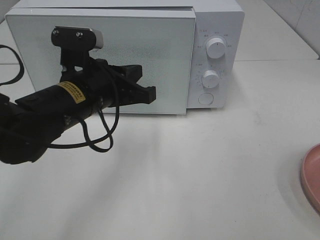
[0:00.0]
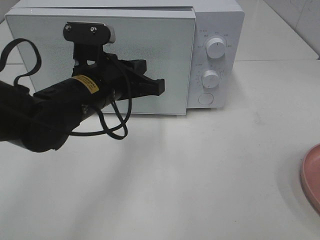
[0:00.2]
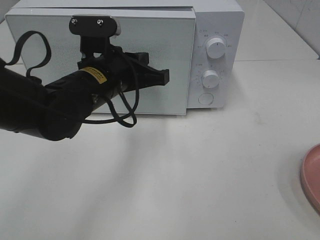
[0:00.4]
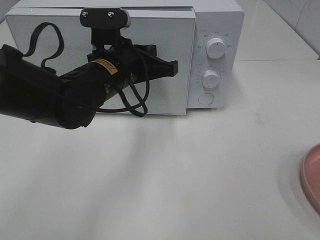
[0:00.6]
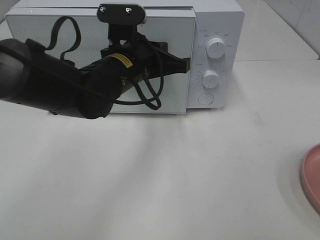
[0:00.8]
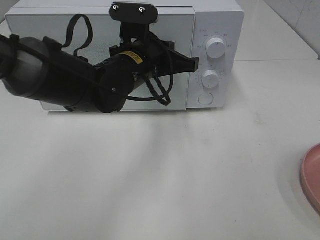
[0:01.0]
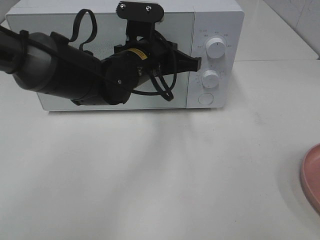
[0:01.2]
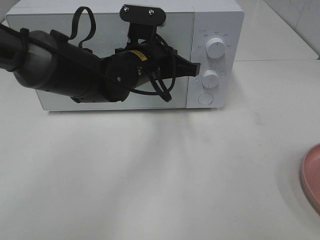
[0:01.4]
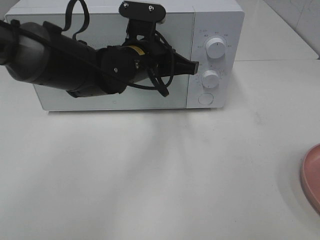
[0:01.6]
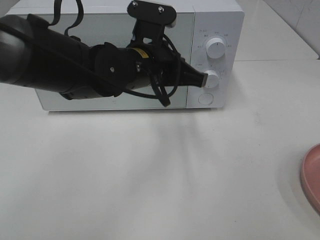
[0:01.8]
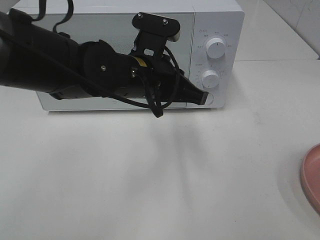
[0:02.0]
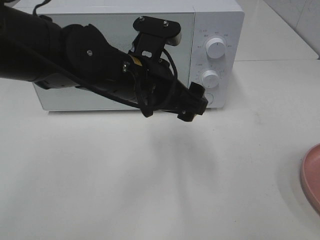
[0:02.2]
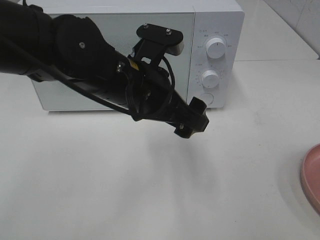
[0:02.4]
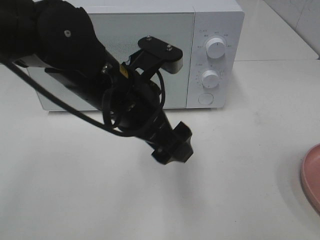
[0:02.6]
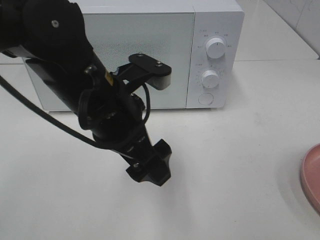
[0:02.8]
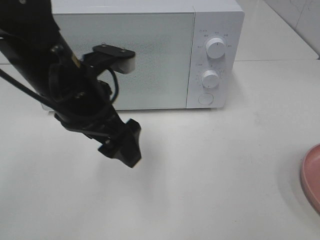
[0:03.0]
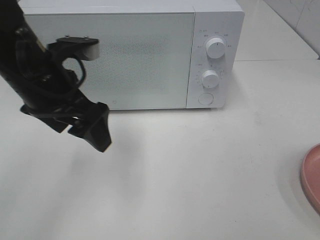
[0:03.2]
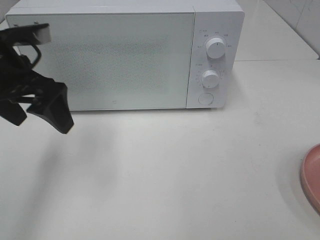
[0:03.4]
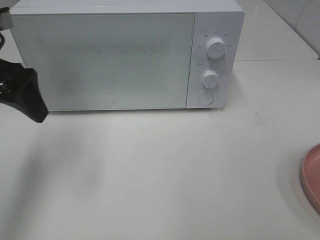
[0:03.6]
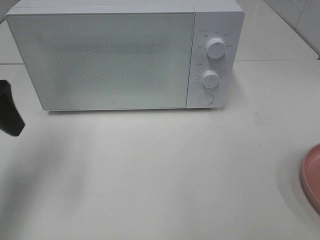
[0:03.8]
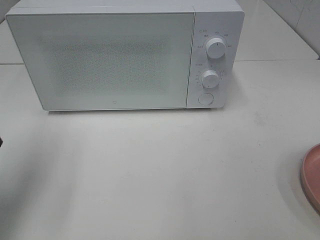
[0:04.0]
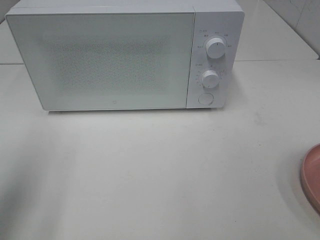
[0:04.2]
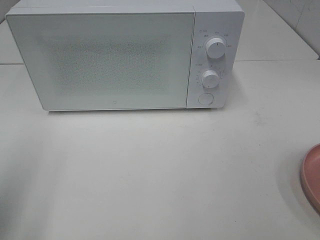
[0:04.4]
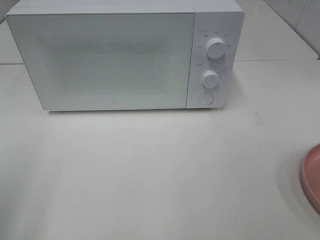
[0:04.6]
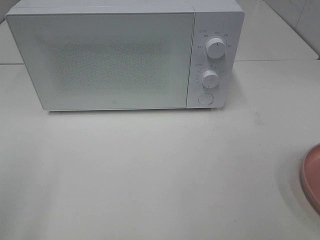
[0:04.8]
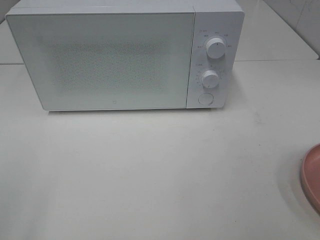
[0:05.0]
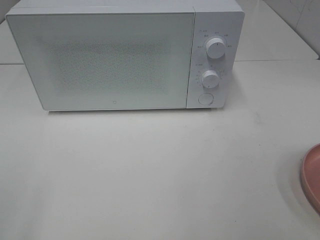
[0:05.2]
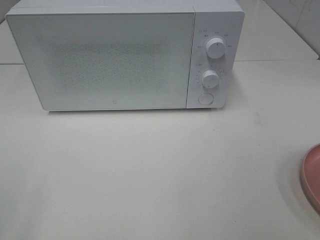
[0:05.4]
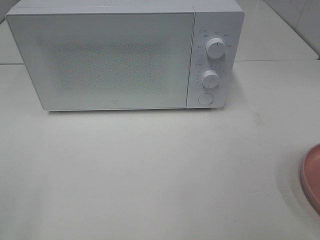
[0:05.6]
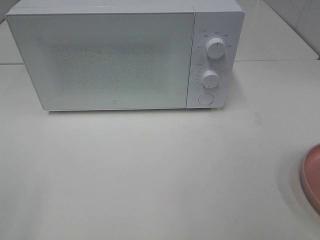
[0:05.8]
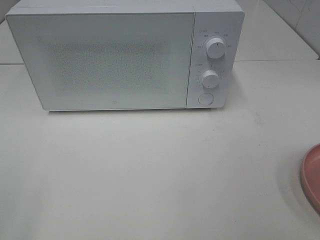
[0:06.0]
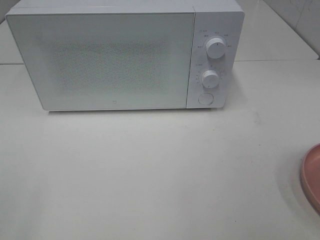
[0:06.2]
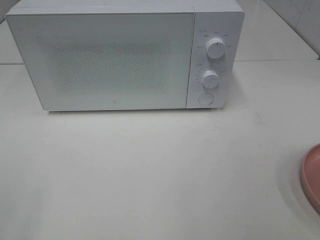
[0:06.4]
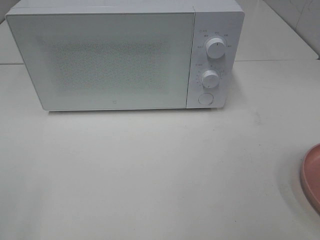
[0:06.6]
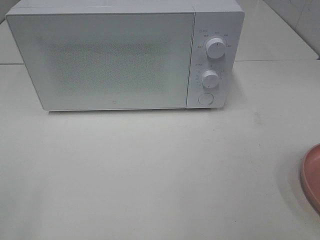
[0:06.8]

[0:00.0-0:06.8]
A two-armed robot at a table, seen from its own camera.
Task of the whole recording: Heat the burger.
0:00.0 to 0:01.4: The left gripper moves forward and to the right, about 10 cm.
0:01.4 to 0:02.8: The left gripper shifts about 10 cm backward, and opens up.
0:02.8 to 0:04.0: The left gripper is displaced to the left by some 20 cm.
0:04.0 to 0:05.4: The left gripper is displaced backward by some 20 cm.
0:05.4 to 0:06.8: Neither gripper changes place.

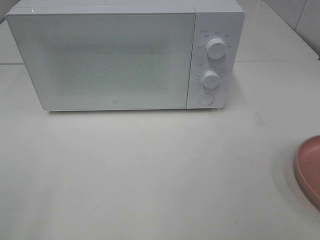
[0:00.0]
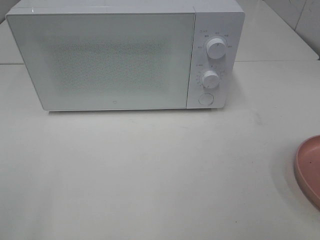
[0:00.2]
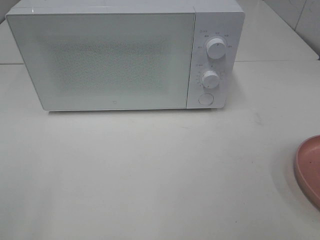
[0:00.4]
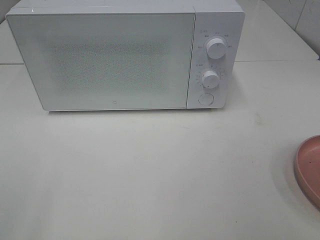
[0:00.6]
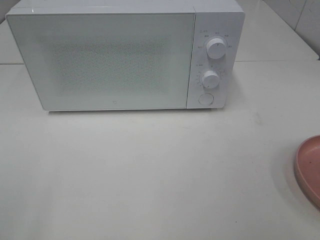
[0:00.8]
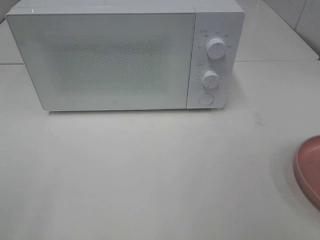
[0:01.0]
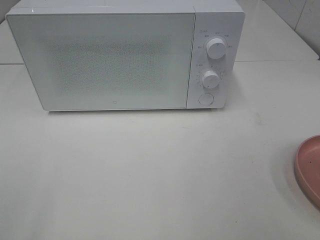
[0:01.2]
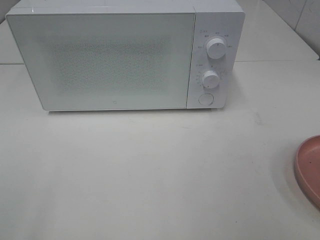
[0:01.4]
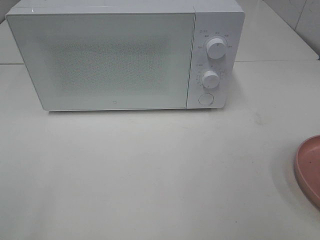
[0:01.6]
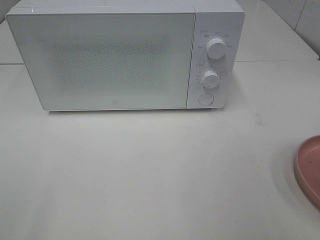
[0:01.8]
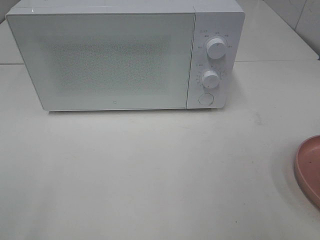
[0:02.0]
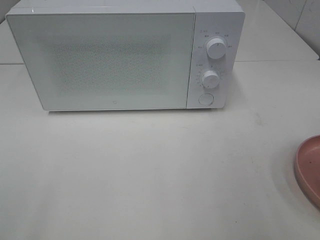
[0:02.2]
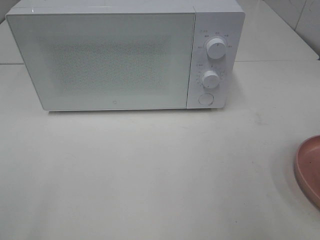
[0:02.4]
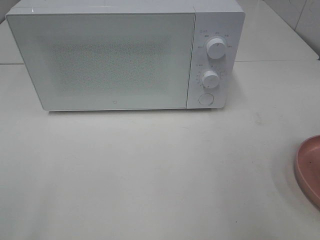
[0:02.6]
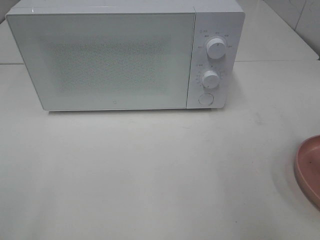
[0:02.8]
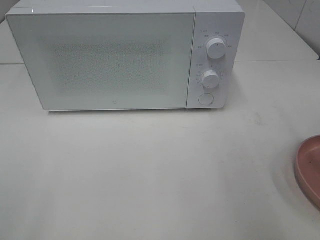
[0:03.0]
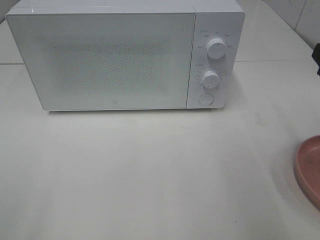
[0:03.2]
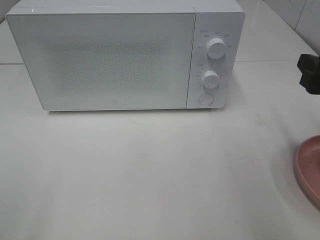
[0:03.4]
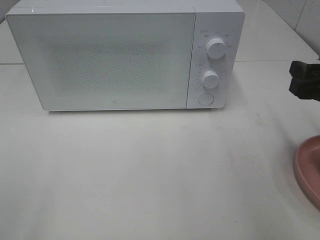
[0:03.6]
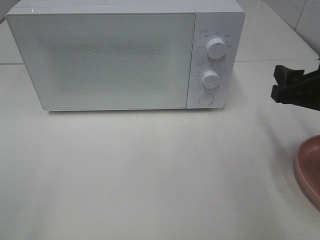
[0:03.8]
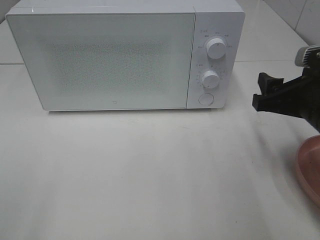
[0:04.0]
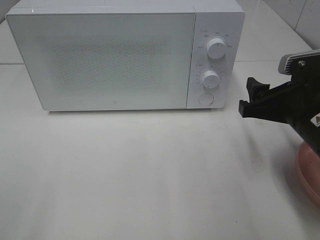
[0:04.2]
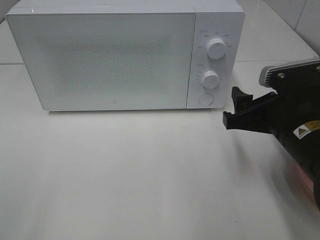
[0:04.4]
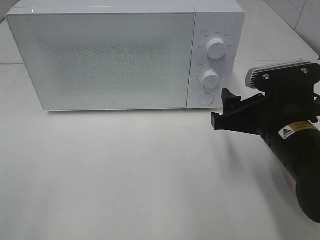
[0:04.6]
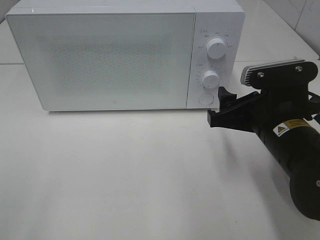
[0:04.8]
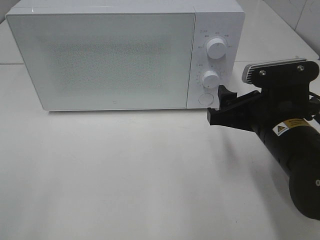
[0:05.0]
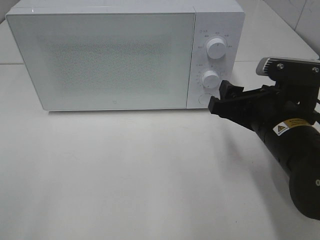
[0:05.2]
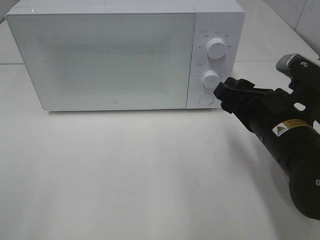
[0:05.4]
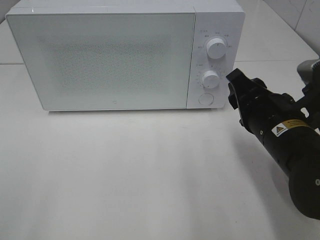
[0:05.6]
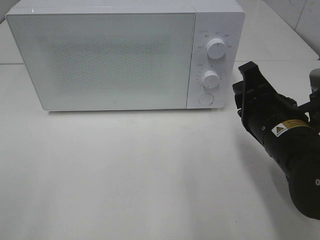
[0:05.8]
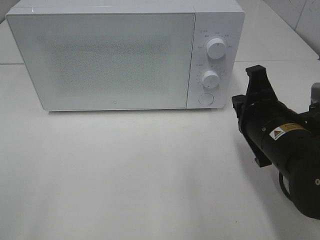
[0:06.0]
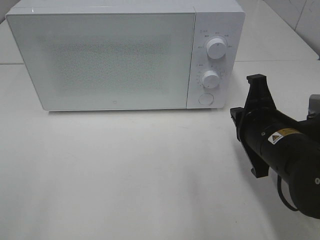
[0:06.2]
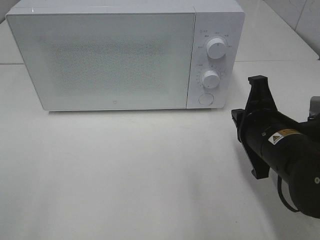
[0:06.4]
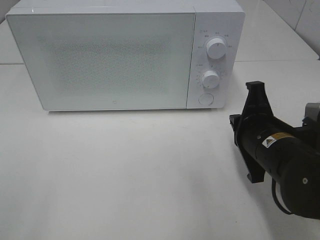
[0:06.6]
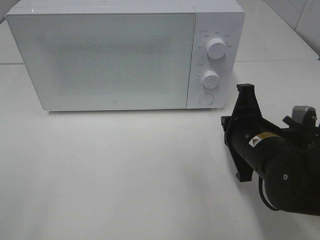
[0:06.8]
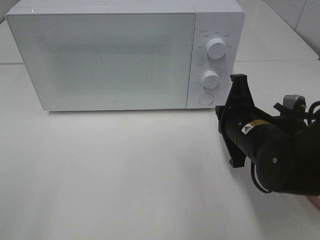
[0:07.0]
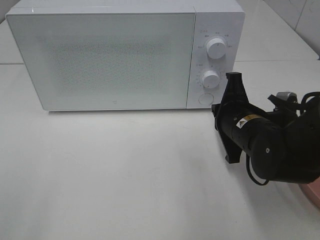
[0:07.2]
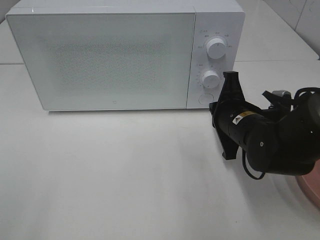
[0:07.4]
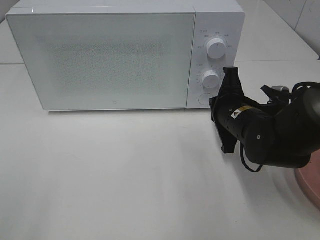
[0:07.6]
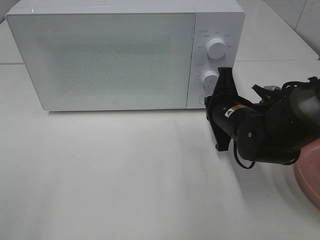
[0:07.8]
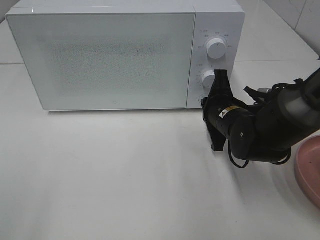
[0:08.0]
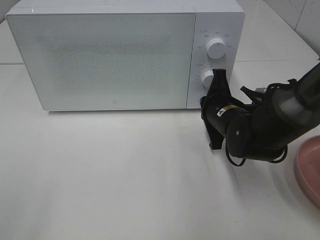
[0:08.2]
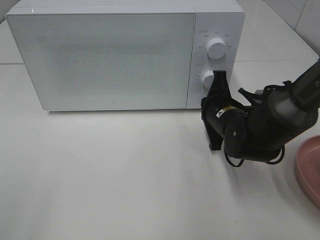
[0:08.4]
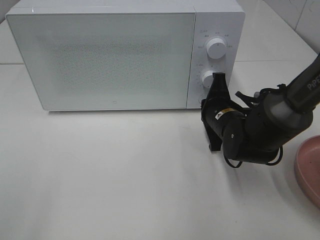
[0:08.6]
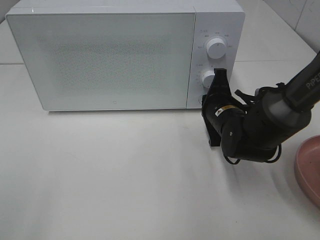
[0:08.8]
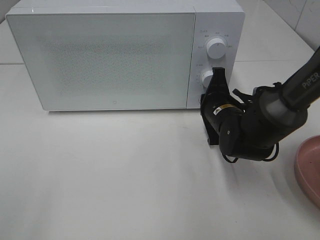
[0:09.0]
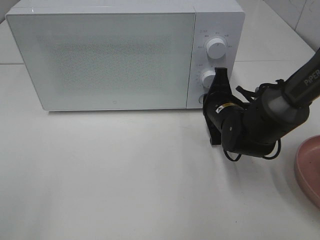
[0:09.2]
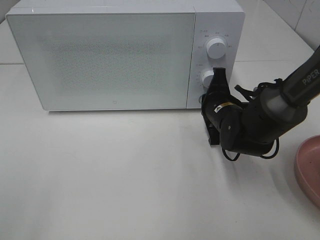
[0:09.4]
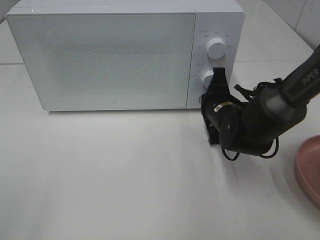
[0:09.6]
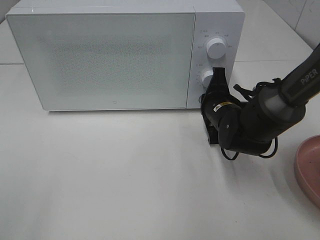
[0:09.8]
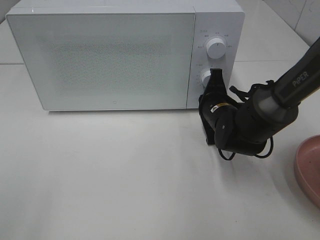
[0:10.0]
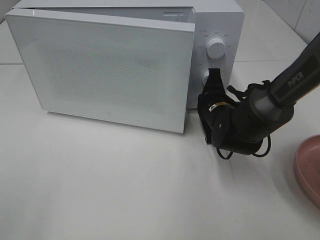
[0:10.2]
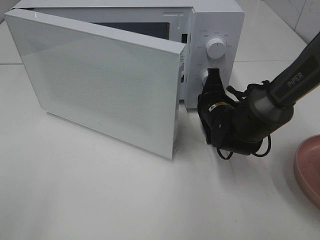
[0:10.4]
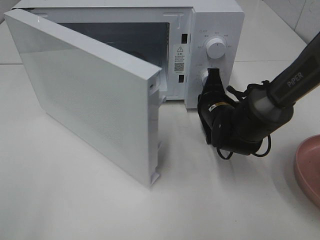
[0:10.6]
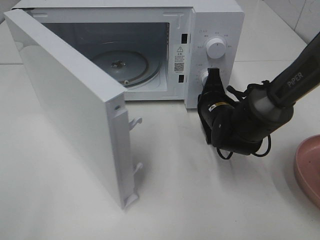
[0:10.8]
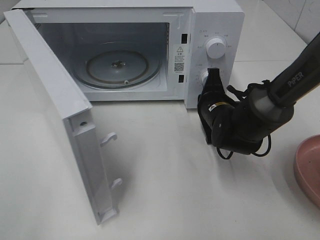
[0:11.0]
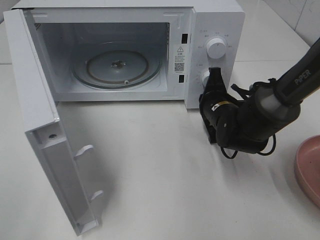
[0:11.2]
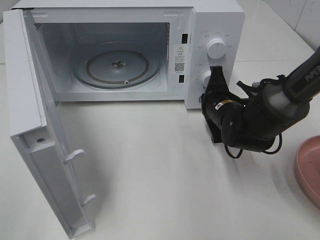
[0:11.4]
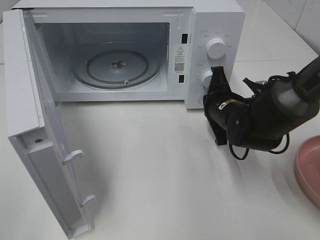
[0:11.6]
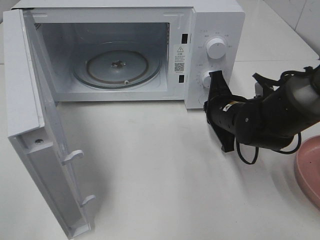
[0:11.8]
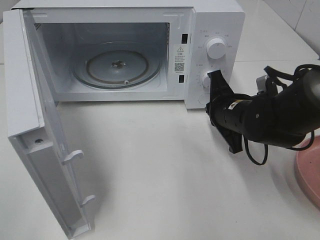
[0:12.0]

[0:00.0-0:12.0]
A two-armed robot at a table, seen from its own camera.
Task of the whole recording: Heat the burger.
Step, 0:00.0 to 0:11.6: Right hand: press the switch.
0:03.0 to 0:04.4: The right gripper shifts some 15 cm downward and to the left.
0:04.4 to 0:06.0: The right gripper closes.
0:06.0 to 0:07.6: The right gripper goes roughly 10 cm forward.
0:07.6 to 0:09.0: The right gripper changes place by some 5 cm.
0:09.0 to 0:10.4: There are only small adjustments of the grippers.
0:10.4 to 0:12.0: The right gripper shifts by approximately 5 cm.

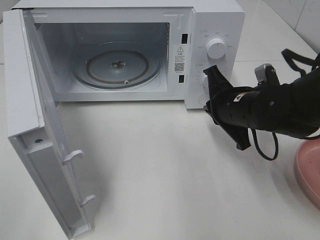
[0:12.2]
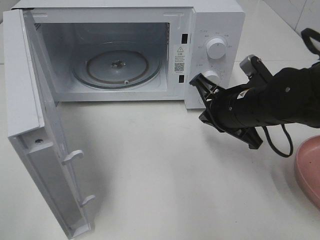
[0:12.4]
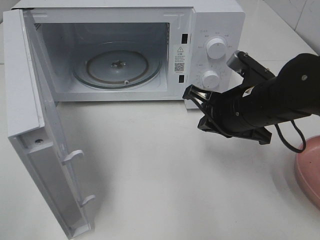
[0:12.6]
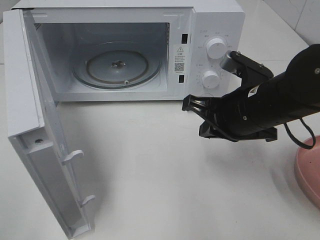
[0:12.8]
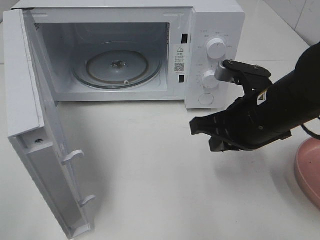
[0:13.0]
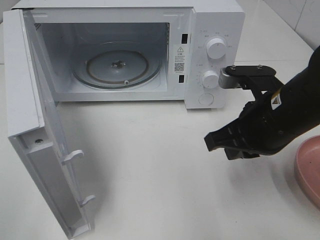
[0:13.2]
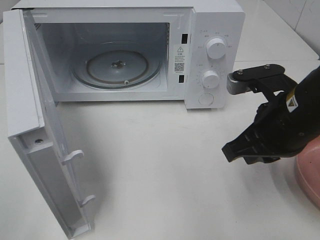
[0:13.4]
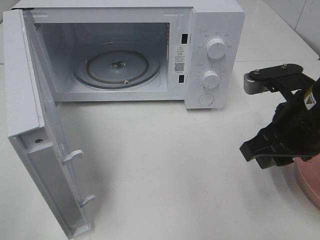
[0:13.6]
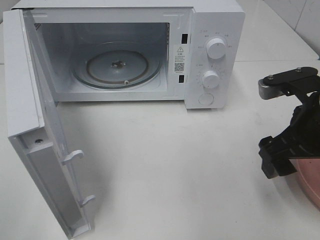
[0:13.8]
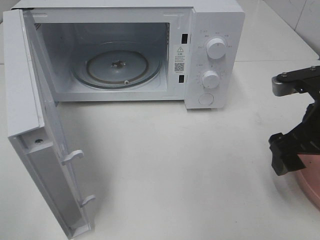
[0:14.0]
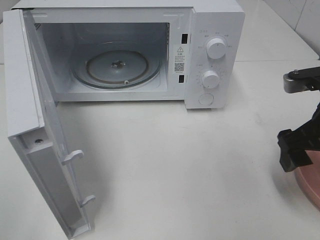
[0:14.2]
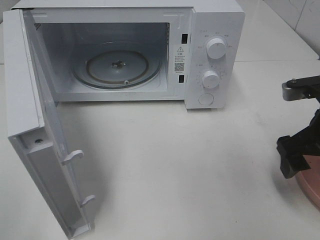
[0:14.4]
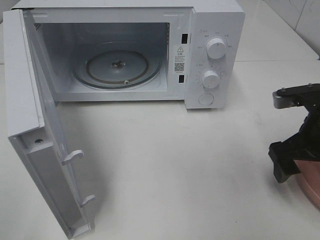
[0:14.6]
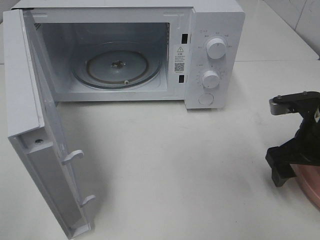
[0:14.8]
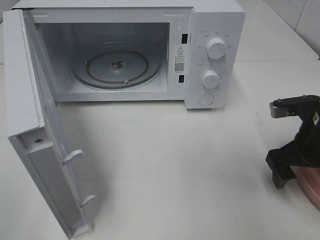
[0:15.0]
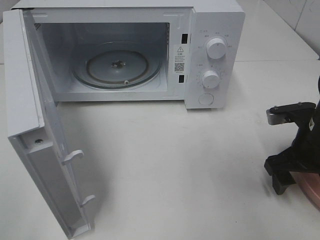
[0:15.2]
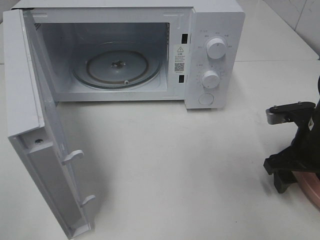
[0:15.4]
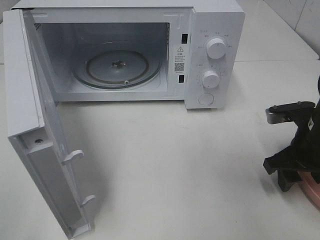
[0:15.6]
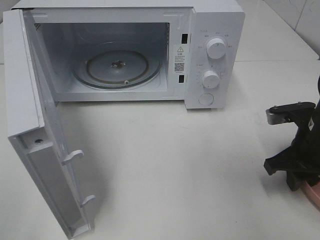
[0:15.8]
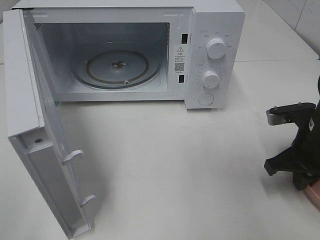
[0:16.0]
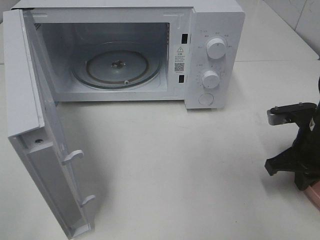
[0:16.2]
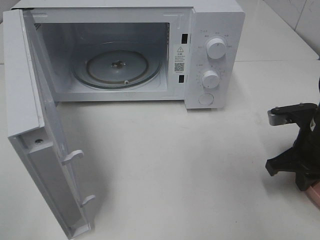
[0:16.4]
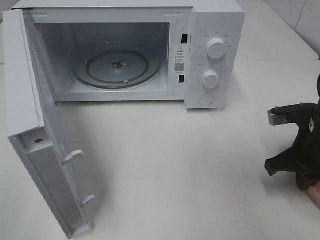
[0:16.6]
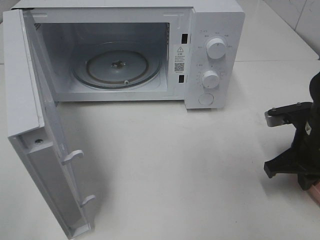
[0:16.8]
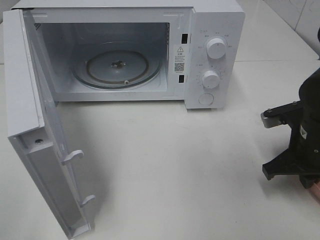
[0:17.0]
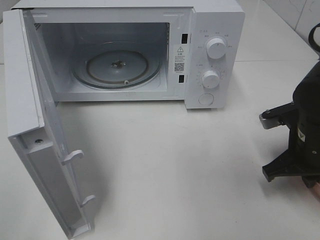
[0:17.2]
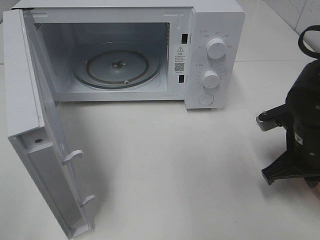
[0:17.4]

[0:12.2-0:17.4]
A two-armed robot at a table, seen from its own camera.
Task of the whole recording: Heat the burger.
Step, 0:12.2 to 0:16.2: Right hand: grab the plate with the hamburger.
0:12.2 to 0:14.0: The right gripper heads to the right, backward and upward, covering some 15 cm, and opens its fingers.
0:14.0 to 0:15.6: The right gripper moves downward, roughly 10 cm.
0:15.6 to 0:17.4: The right gripper closes its fingers.
